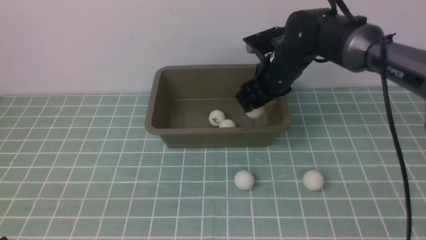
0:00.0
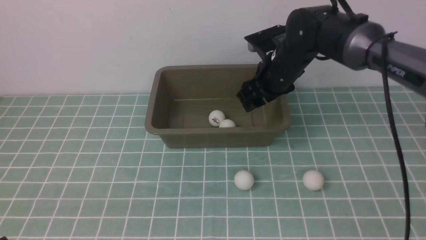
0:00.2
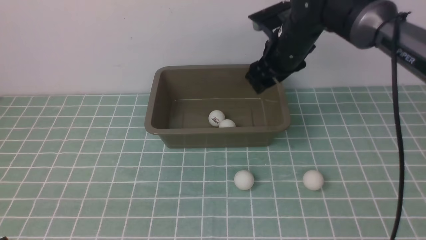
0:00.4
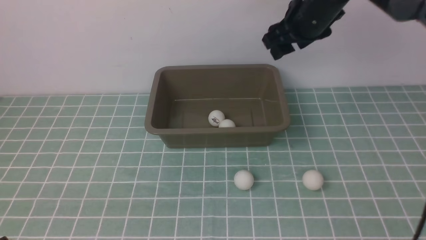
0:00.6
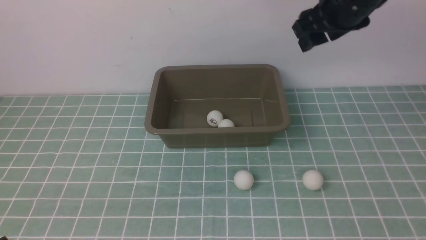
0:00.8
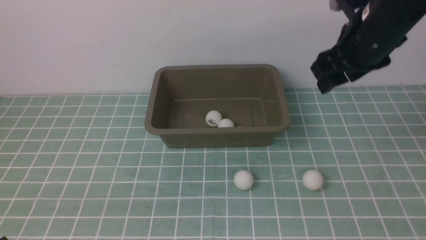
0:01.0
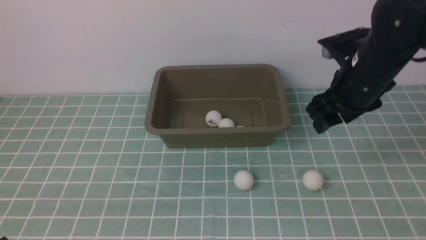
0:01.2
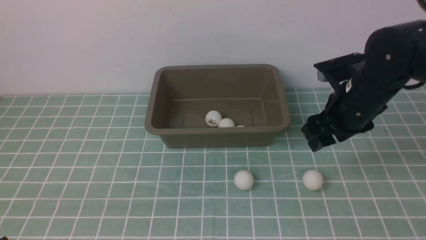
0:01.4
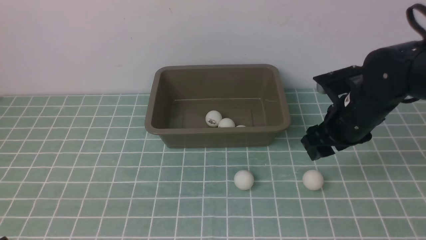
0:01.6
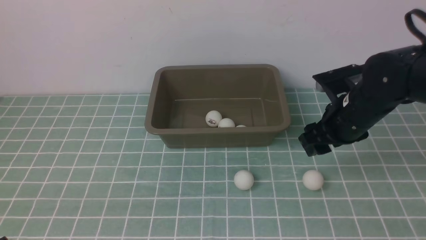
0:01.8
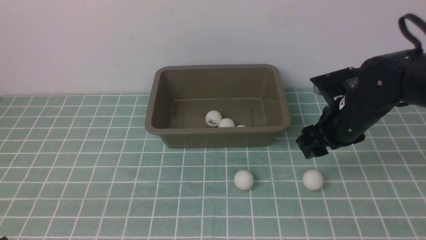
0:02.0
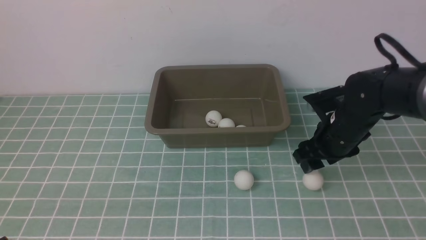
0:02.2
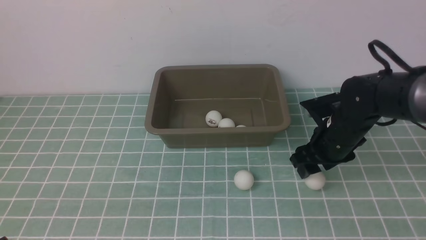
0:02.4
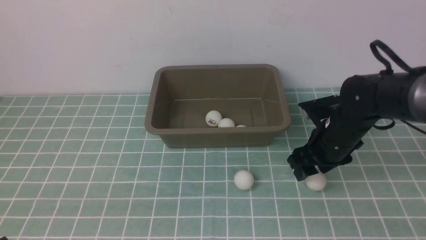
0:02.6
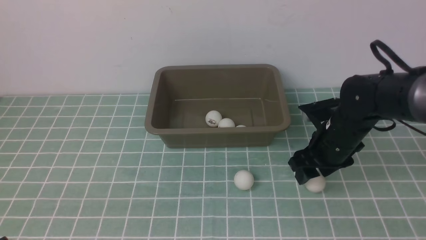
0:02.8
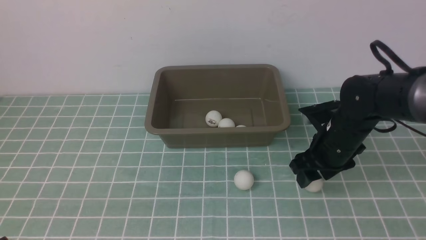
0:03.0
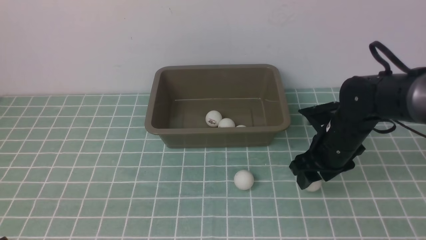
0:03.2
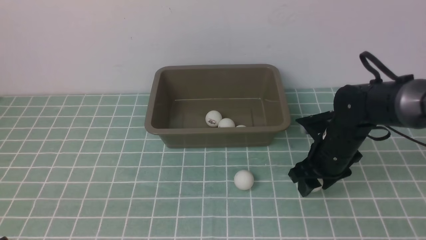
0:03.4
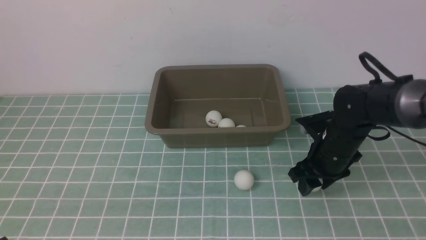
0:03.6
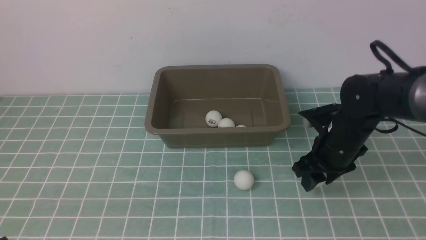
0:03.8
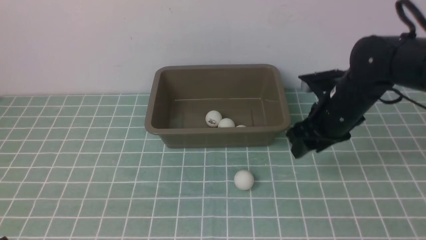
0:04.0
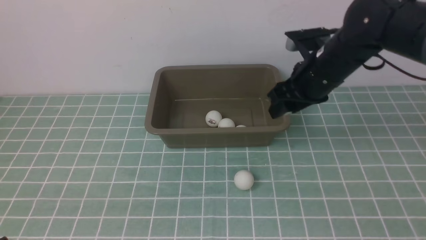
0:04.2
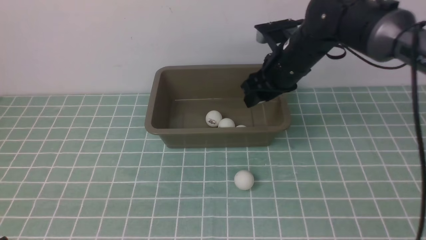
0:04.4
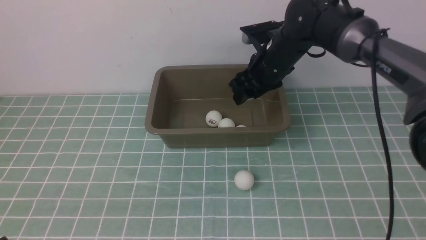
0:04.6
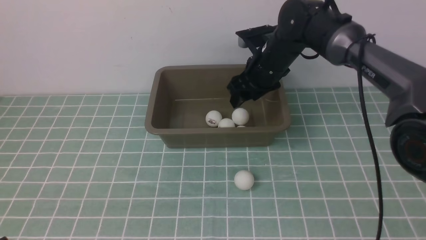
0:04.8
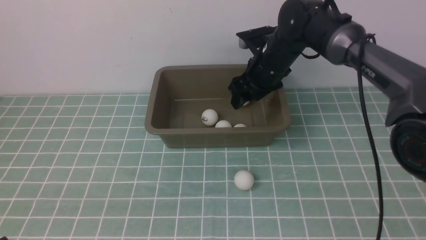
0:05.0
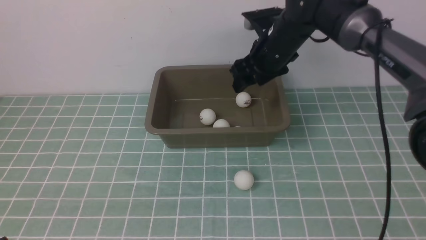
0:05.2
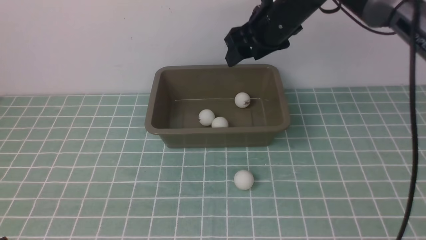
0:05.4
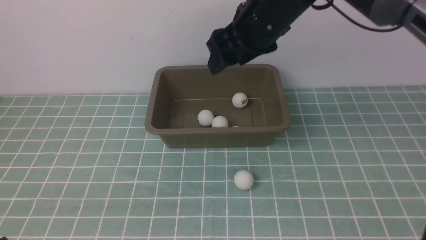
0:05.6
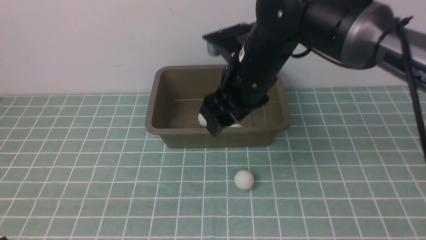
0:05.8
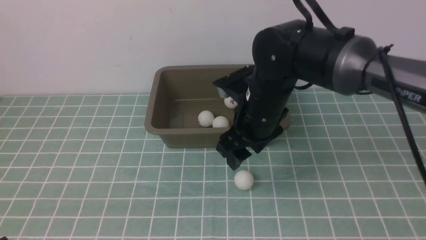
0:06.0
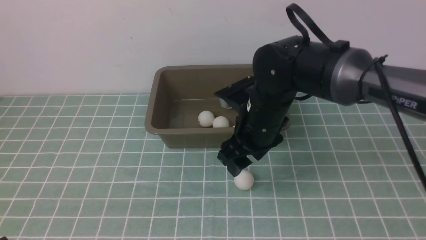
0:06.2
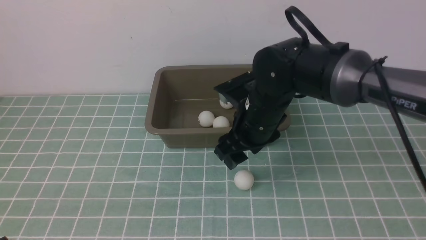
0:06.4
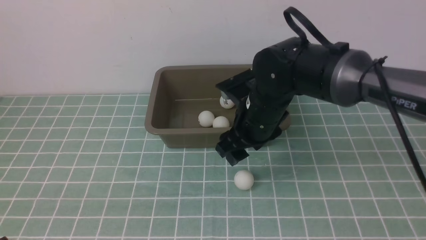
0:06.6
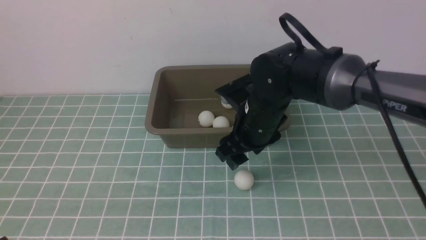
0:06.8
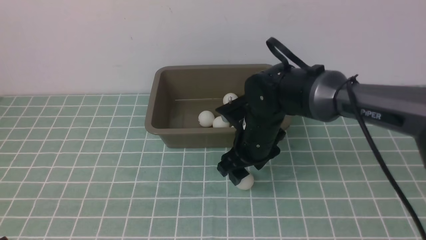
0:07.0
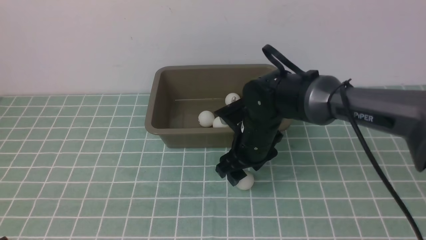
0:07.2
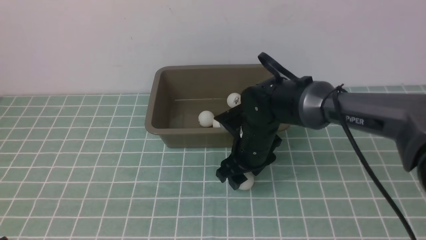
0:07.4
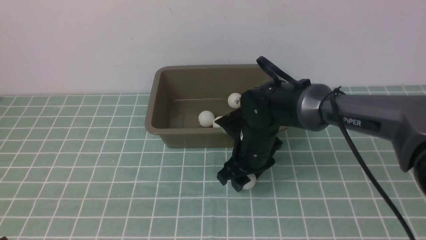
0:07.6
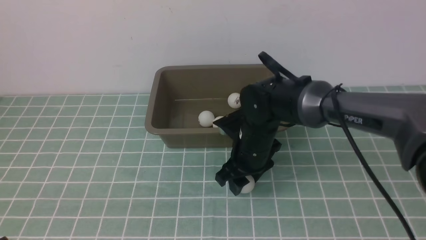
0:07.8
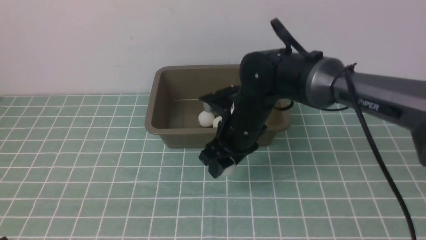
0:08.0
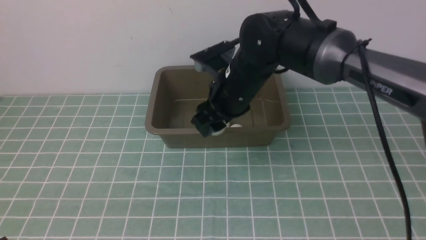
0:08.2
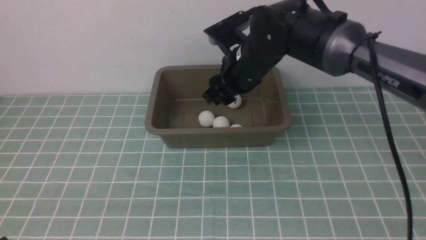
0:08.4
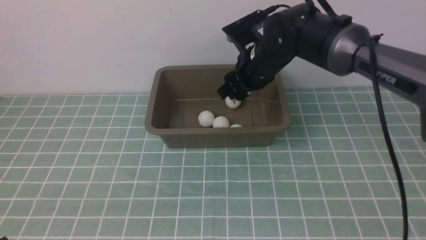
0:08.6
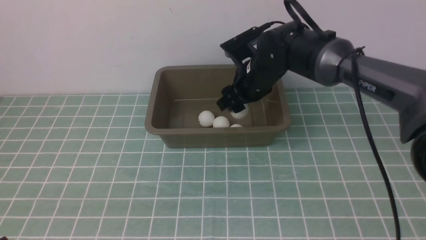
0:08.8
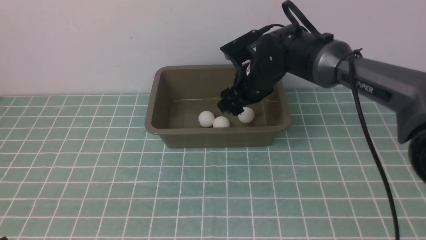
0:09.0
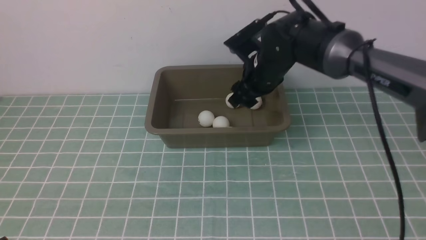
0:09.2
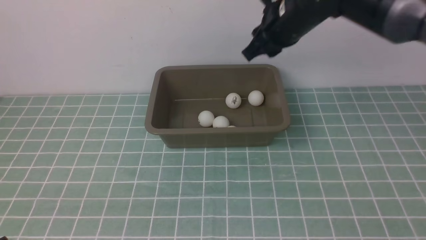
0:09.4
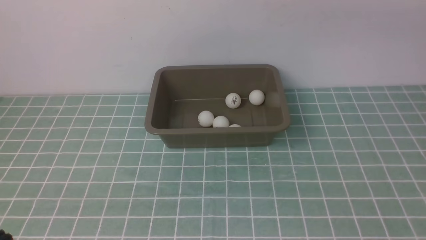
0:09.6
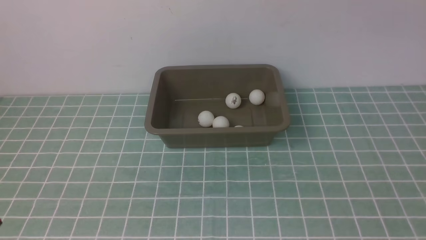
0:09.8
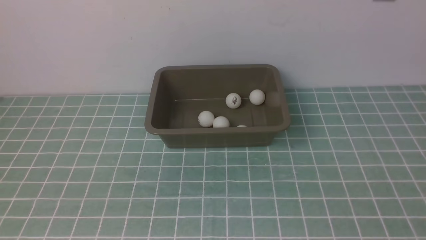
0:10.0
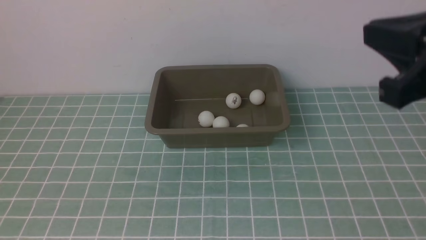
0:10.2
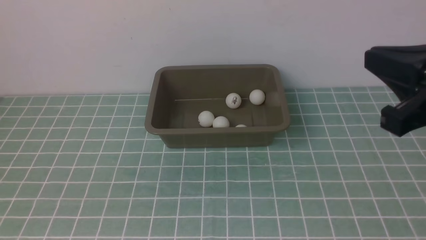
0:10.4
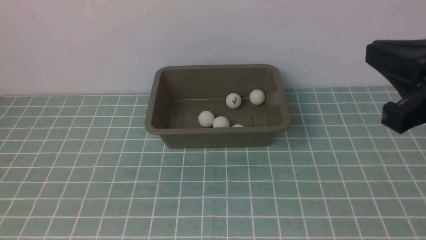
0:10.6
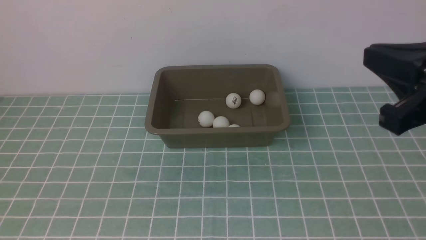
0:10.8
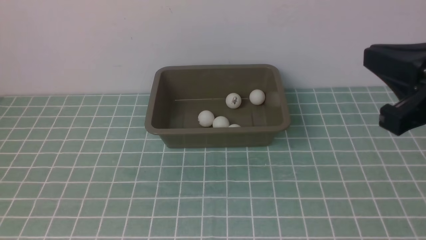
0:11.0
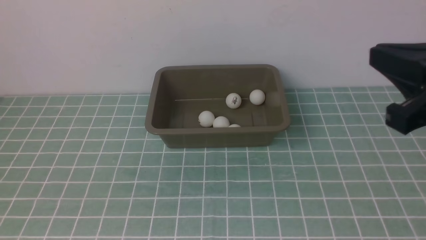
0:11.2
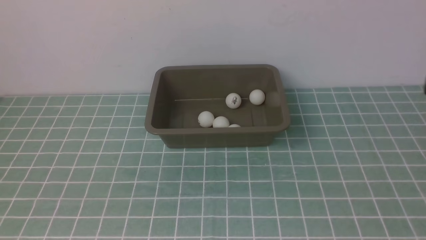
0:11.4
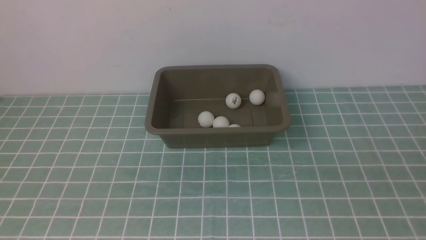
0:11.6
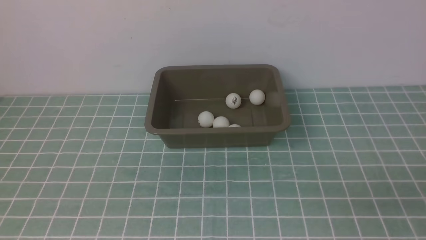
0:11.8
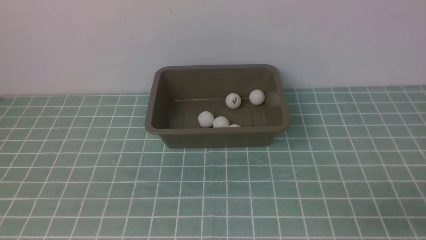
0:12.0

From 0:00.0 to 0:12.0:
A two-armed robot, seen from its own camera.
Step, from 0:00.4 to 0:03.8: use the right arm to clamp the table tennis ball closest to it.
Step, from 0:04.0 to 0:05.0: use the right arm to put the table tennis ball into the box.
Step, from 0:05.2 to 0:07.8: use the right arm to clamp the table tennis ball closest to it.
Step, from 0:08.0 to 0:09.0: use the right arm to put the table tennis ball into the box.
From 0:00.0 to 0:01.6: The right gripper shifts approximately 15 cm backward and to the right, and goes upward and returns, roughly 10 cm each way.
From 0:01.6 to 0:03.0: The right gripper travels downward by about 5 cm.
From 0:03.0 to 0:04.4: The right gripper travels upward, forward and to the left by about 15 cm.
From 0:04.4 to 0:06.0: The right gripper shifts approximately 10 cm backward and to the left.
From 0:06.0 to 0:07.6: The right gripper travels downward by approximately 10 cm.
From 0:07.6 to 0:09.0: The right gripper travels upward and forward by about 10 cm.
From 0:09.0 to 0:10.4: The right gripper travels backward, to the right and upward by about 35 cm, and closes up.
From 0:10.4 to 0:12.0: The right gripper shifts roughly 25 cm downward, backward and to the right.

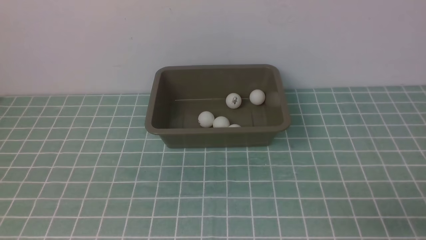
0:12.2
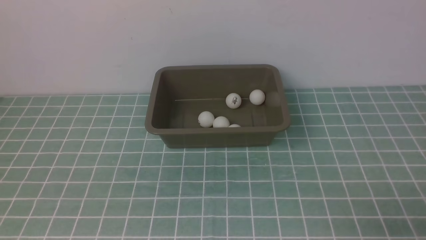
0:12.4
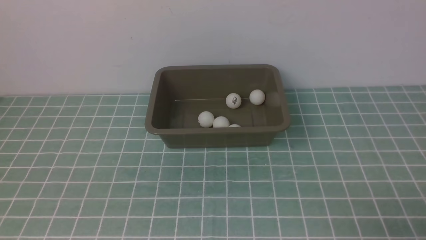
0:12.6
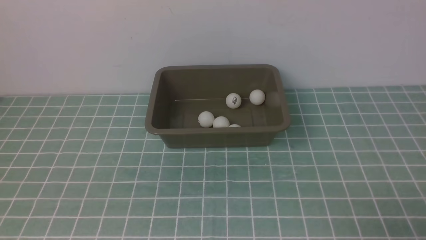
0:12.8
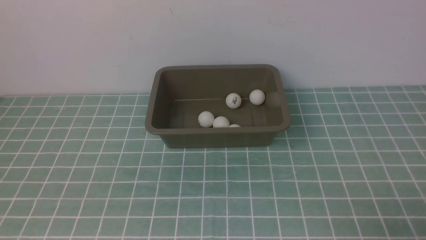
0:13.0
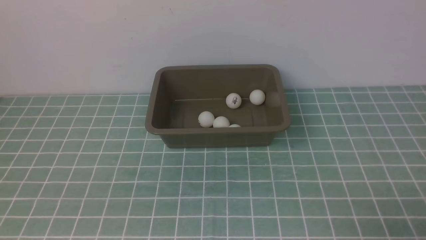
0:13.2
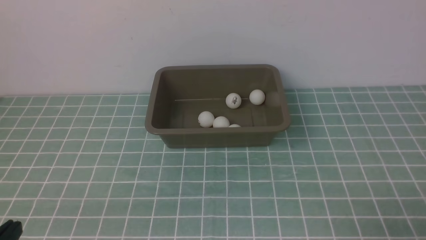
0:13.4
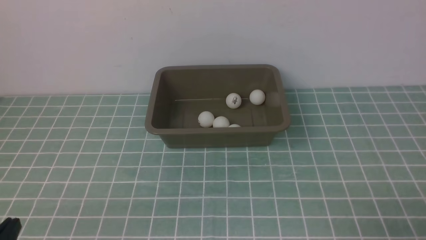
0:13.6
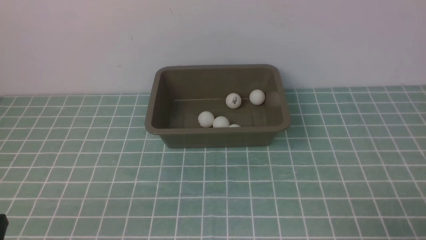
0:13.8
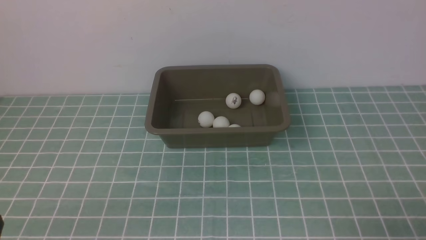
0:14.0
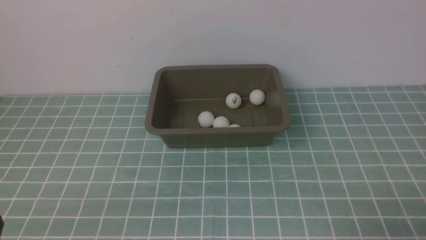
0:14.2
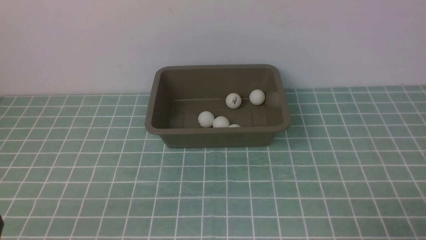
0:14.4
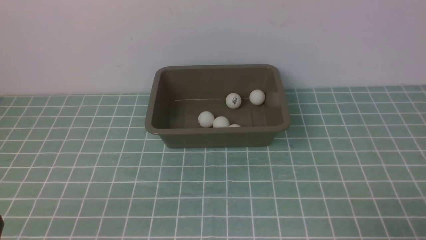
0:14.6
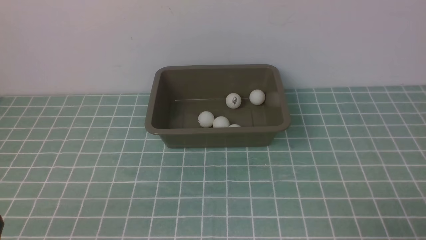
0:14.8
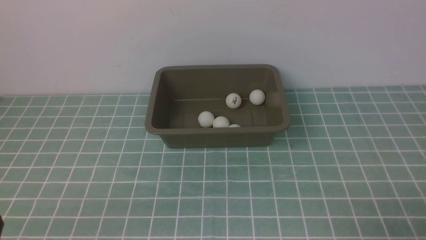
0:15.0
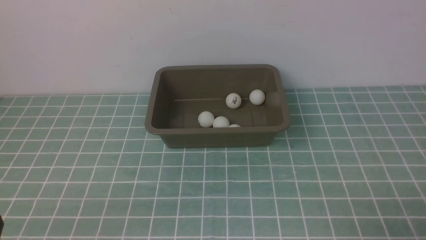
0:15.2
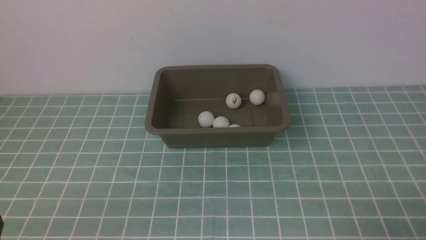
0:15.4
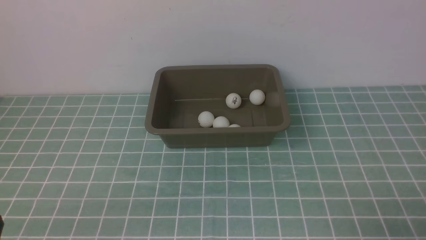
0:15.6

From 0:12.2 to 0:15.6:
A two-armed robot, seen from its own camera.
From 0:13.8 to 0:15.6: Neither gripper changes place.
